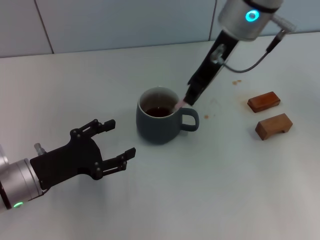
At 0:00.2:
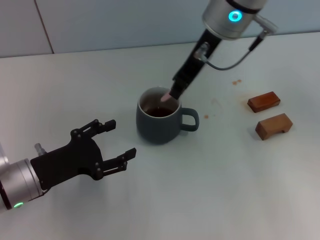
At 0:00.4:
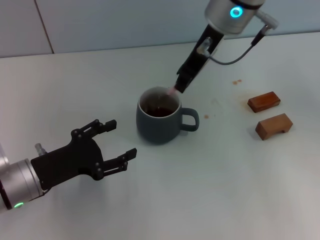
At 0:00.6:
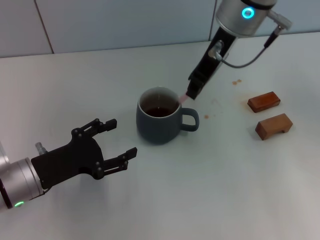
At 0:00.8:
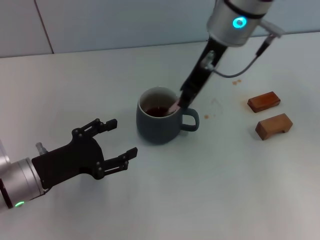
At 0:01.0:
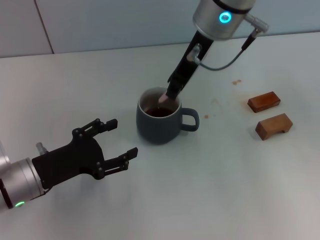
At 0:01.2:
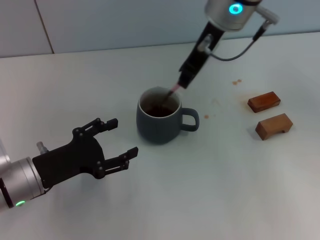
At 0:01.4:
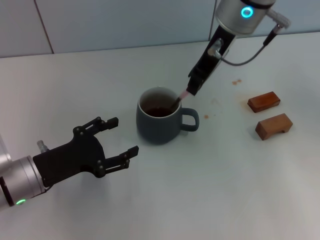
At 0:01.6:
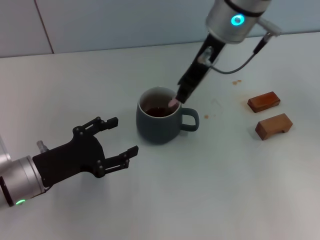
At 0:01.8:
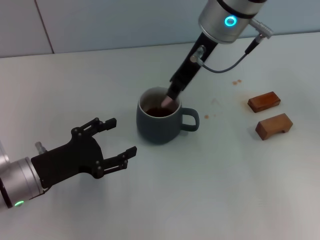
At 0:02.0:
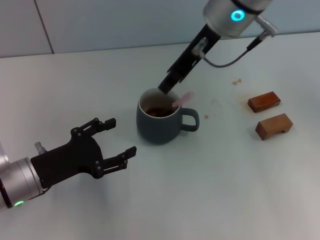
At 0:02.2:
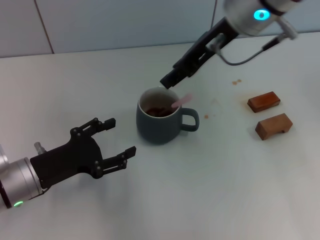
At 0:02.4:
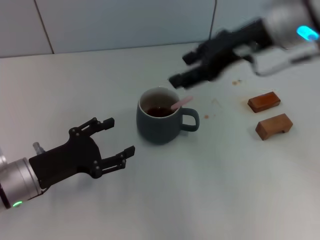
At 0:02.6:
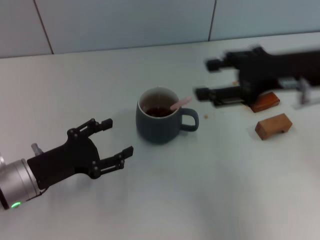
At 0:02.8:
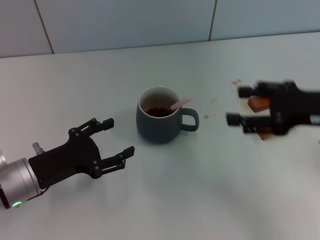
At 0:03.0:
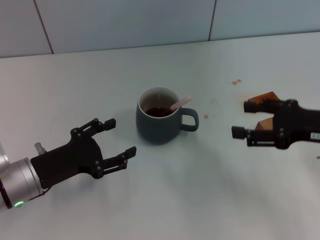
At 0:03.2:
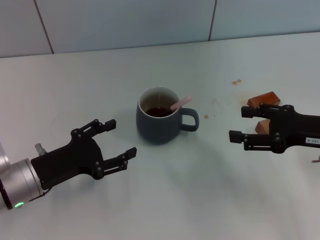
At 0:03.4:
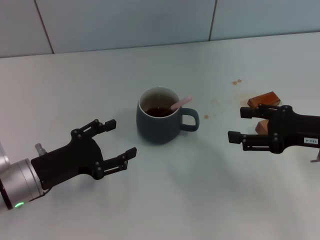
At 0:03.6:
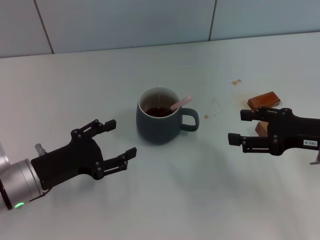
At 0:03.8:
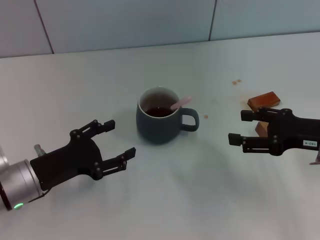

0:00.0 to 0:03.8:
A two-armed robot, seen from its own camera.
Task of the whole recording: Move the grey cup to the center, lift the pink spoon, stir it three times in the cup, and put the spoon into the cup.
Step, 0:00.0 to 0:02.2: Stir the coffee in the cup with the right gripper.
0:00.0 to 0:01.2: The grippers stay close to where they were, moving slightly.
0:01.2 to 0:02.6: The right gripper moves to the right and backward, some 20 cm, and opens.
0:02.6 to 0:03.8: The right gripper is displaced downward and to the right by approximately 10 cm.

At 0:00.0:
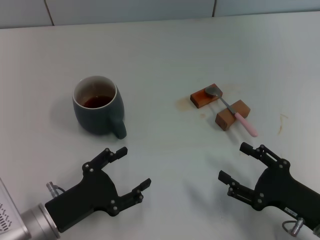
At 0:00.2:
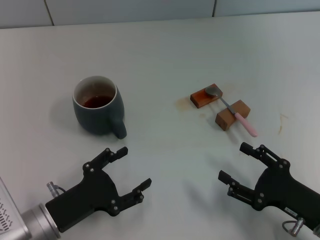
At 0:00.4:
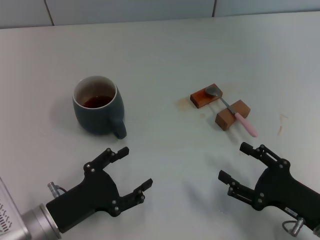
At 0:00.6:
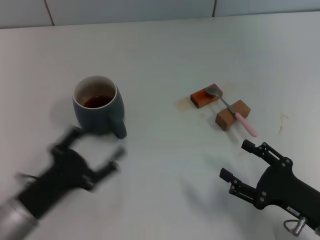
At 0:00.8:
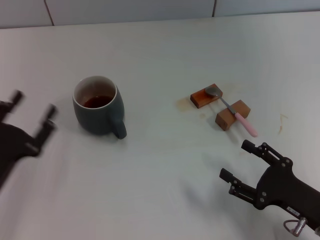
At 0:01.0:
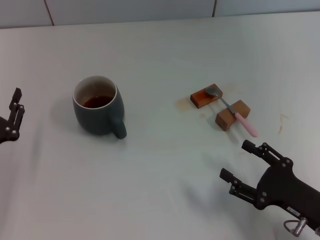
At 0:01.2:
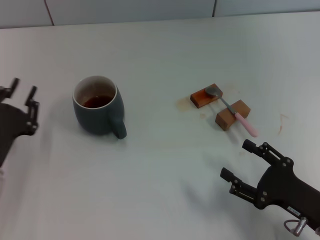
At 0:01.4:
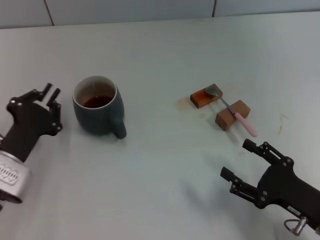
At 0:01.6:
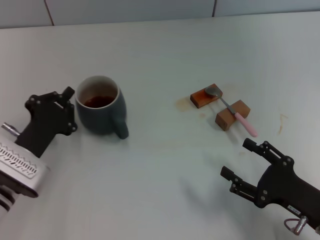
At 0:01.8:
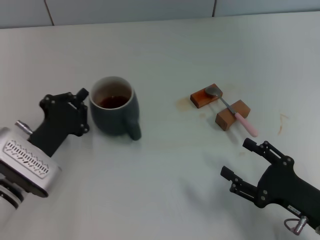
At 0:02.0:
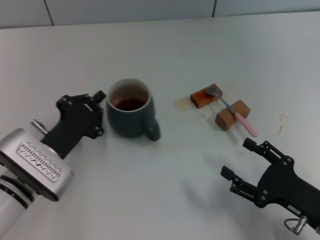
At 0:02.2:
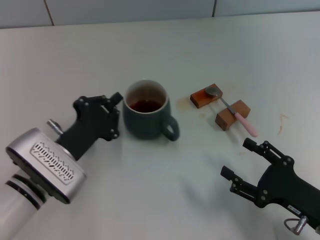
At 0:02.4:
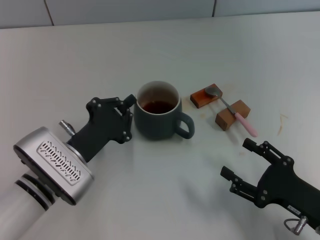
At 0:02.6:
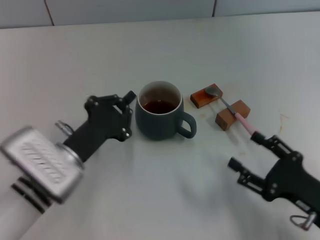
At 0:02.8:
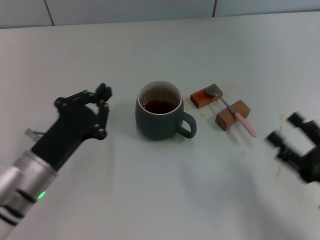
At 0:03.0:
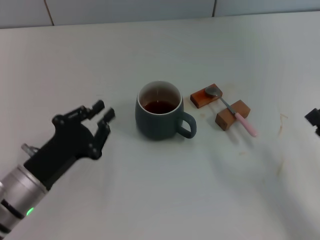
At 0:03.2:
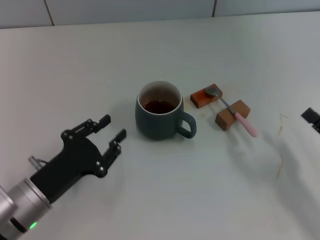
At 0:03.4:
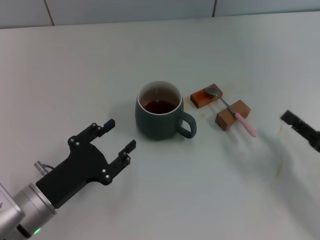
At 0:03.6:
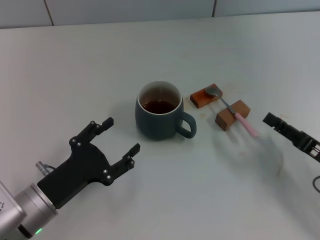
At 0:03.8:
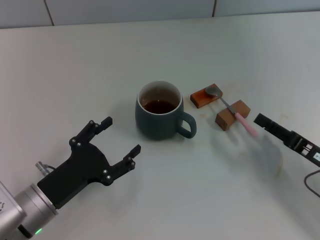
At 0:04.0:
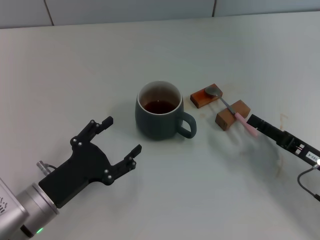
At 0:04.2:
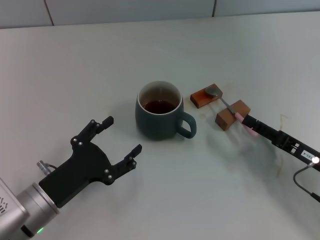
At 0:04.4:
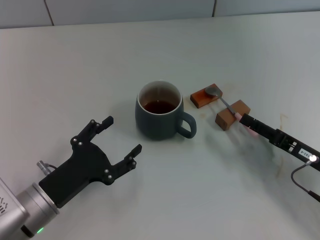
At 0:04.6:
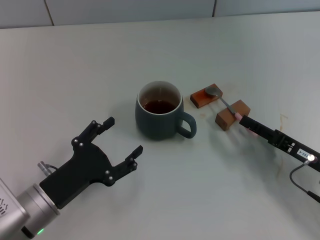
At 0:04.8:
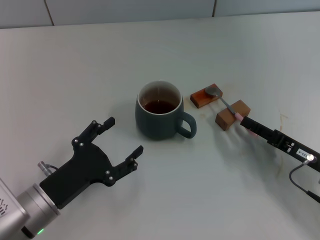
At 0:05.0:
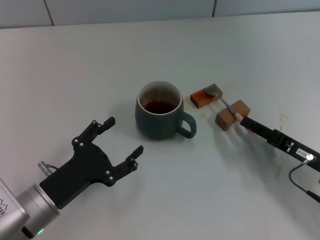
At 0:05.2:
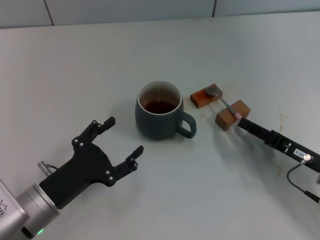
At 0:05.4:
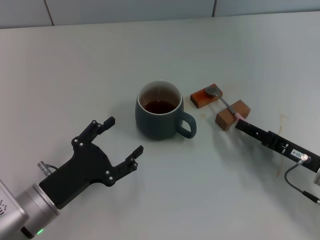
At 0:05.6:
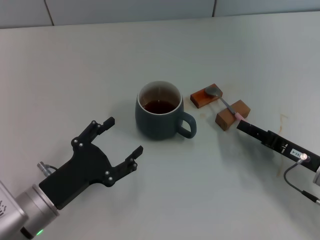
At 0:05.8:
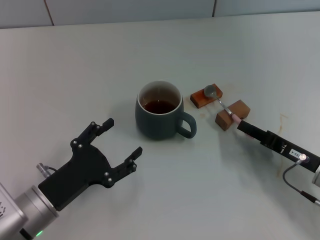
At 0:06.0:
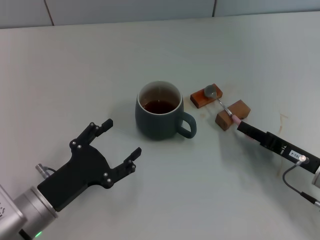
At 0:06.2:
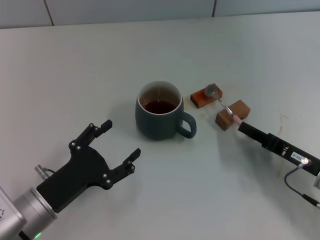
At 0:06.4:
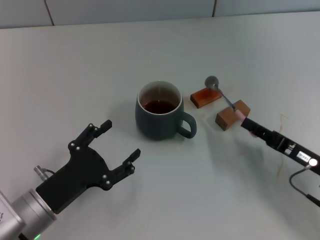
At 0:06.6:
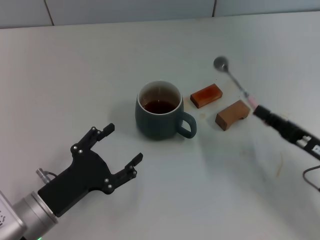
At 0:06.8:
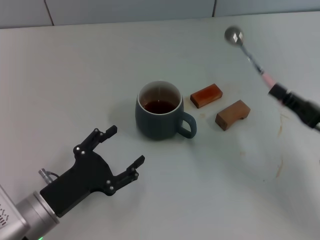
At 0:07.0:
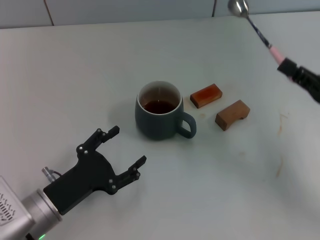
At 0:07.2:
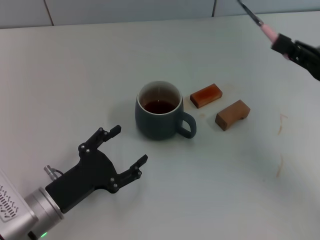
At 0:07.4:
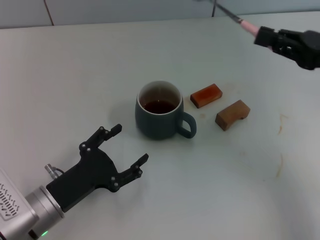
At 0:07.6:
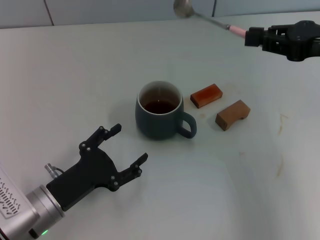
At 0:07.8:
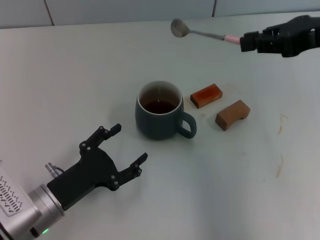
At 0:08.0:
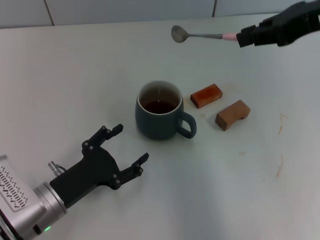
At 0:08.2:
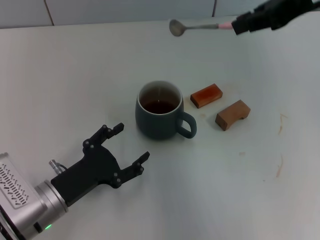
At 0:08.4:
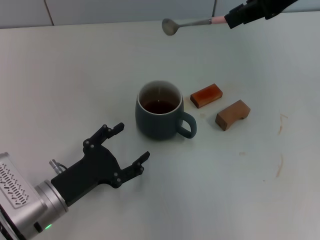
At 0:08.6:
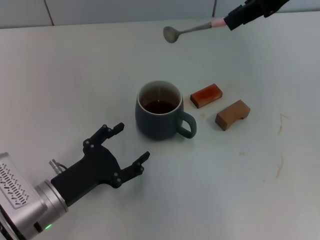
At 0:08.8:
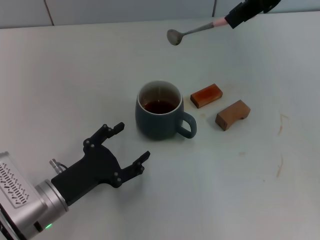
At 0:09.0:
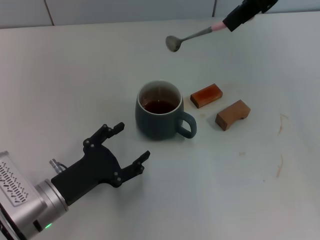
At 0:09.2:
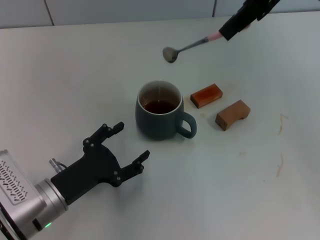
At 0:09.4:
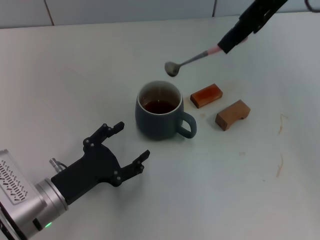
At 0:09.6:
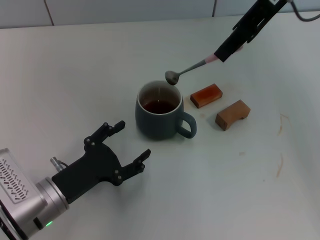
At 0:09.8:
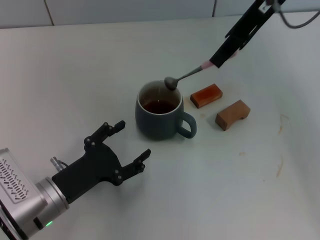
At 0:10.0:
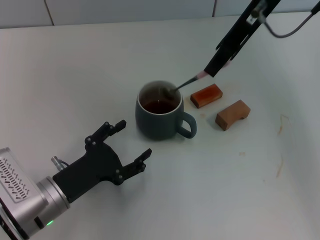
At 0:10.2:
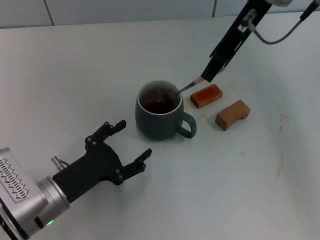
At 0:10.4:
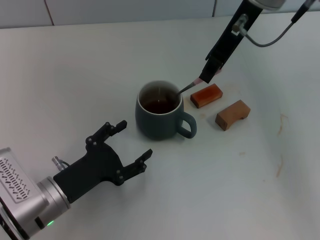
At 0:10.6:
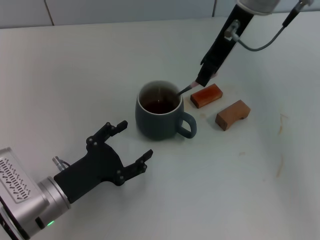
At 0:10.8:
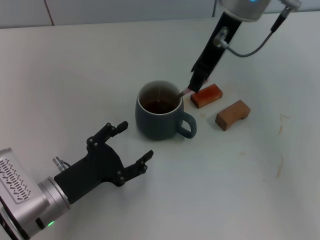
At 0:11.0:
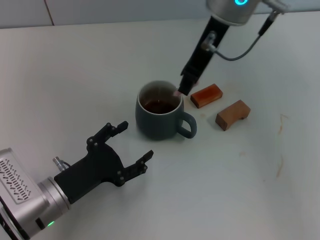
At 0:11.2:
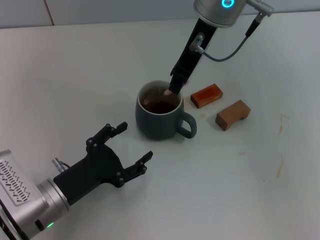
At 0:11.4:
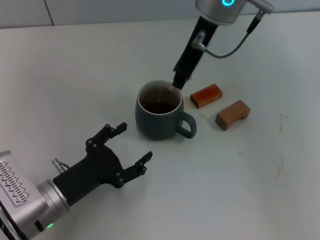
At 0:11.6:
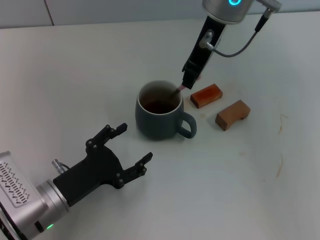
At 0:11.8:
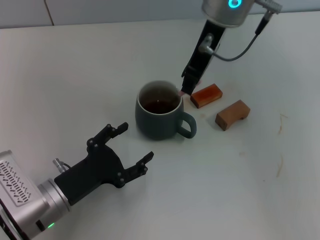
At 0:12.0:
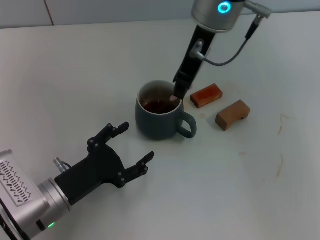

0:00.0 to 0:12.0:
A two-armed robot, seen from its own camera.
Task of the whole recording: Move the grey cup to the center, lift the pink spoon, stir it three times in the cup, and put the spoon into the cup.
Step, 0:00.0 to 0:02.4: Move the cup with coffee to the center of view with the left gripper.
Step, 0:02.6 to 0:06.2: Pick up the spoon with the right gripper.
0:00.0 to 0:01.6: The left gripper heads forward, covering some 5 cm, and closes up.
0:01.6 to 0:03.0: The right gripper is displaced to the right by roughly 5 cm.
0:03.0 to 0:04.4: The right gripper is displaced forward by some 5 cm, while the left gripper opens up.
0:04.4 to 0:06.0: The right gripper closes.
0:06.0 to 0:07.6: The right gripper is displaced upward by approximately 20 cm.
0:07.6 to 0:09.0: The right gripper is displaced upward, to the left and forward by some 20 cm.
0:09.0 to 0:10.4: The right gripper moves downward and to the left, roughly 10 cm.
0:10.4 to 0:12.0: The right gripper is displaced to the left by approximately 5 cm.

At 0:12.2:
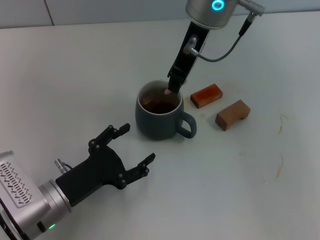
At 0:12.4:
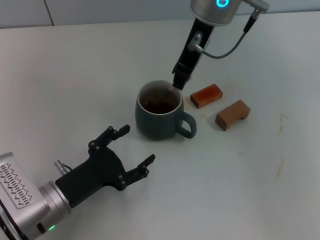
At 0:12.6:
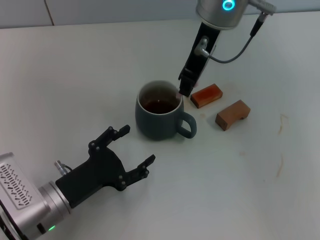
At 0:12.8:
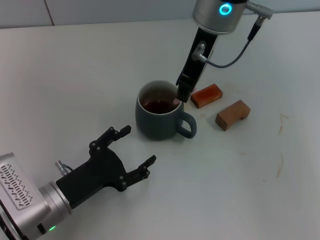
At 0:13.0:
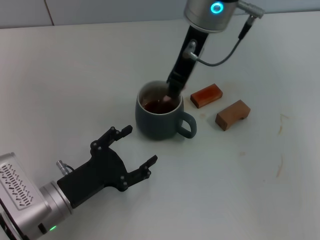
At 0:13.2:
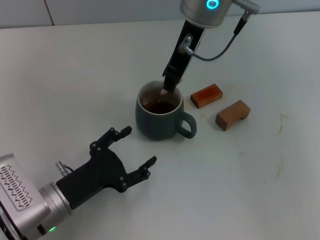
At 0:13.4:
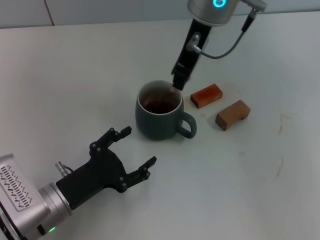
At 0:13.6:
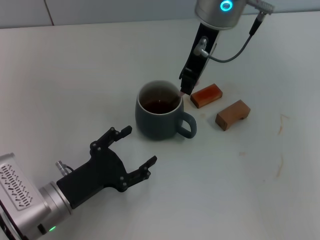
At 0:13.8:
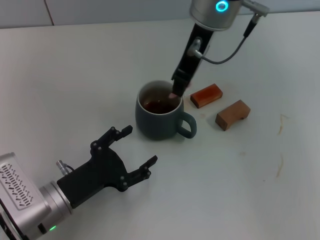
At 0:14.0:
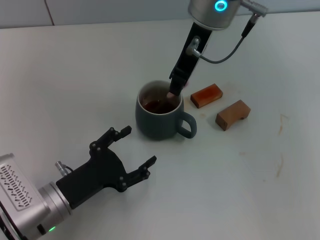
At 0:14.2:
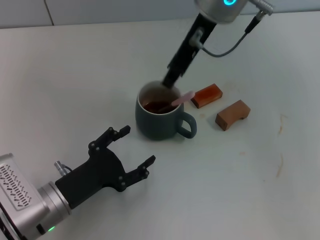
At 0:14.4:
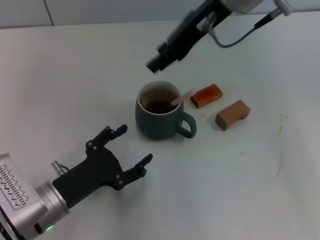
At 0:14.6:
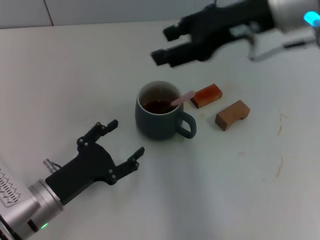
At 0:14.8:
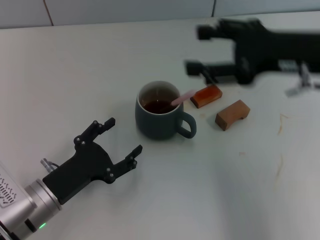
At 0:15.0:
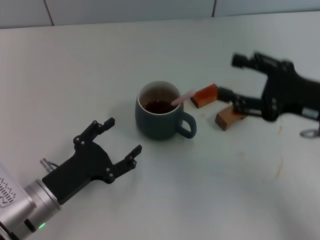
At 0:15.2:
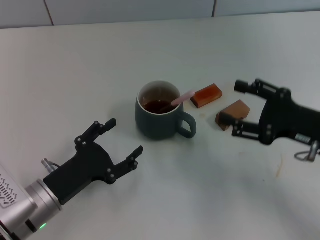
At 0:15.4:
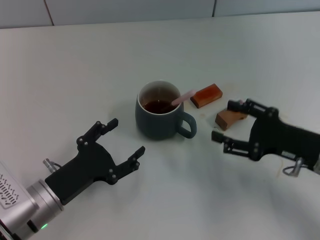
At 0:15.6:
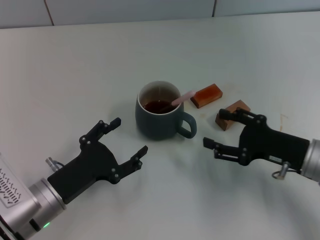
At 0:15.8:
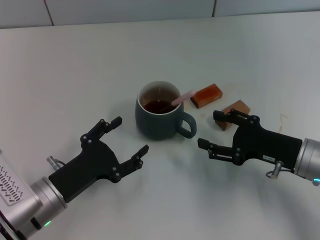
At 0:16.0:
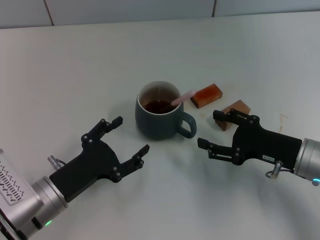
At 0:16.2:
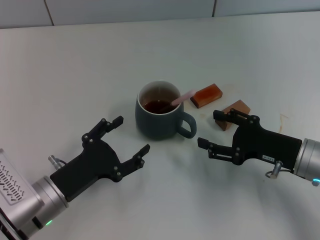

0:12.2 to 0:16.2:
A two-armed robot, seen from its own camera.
Task of the whole recording: Move the grey cup to the center, lift the pink spoon, stir it three times in the cup, and put the spoon into the cup.
0:12.2 to 0:13.6: The two grippers keep their place.
0:13.6 to 0:14.8: The right gripper travels to the right and backward by some 20 cm, and opens.
0:14.8 to 0:16.2: The right gripper moves downward, approximately 15 cm.
